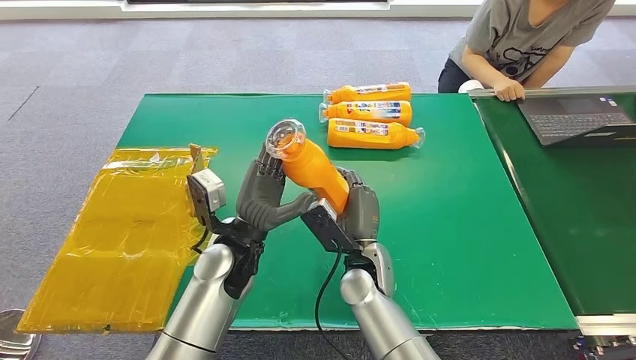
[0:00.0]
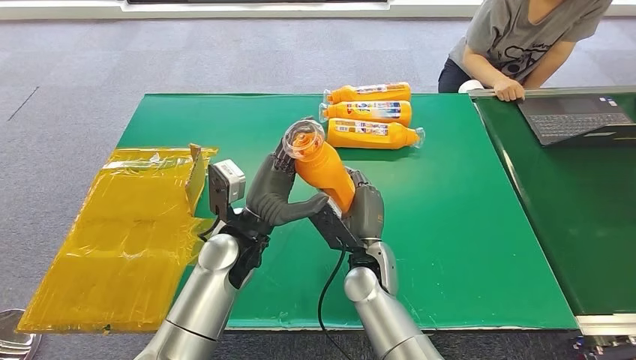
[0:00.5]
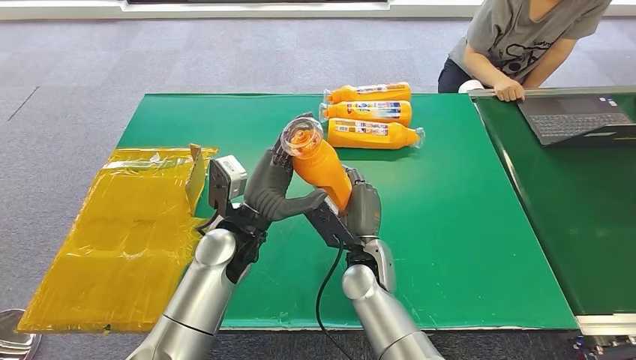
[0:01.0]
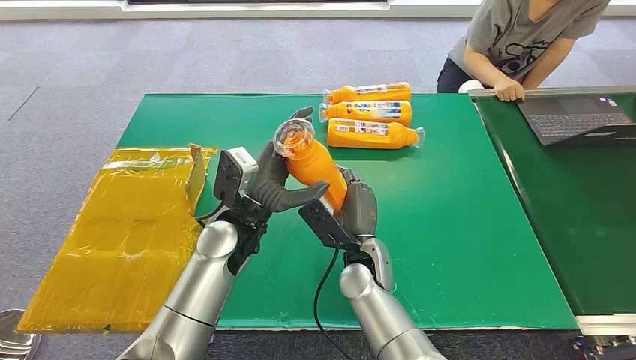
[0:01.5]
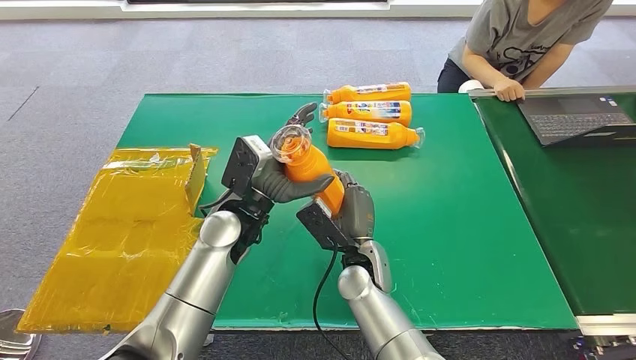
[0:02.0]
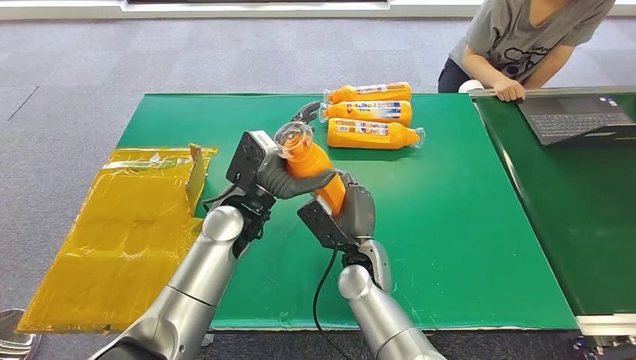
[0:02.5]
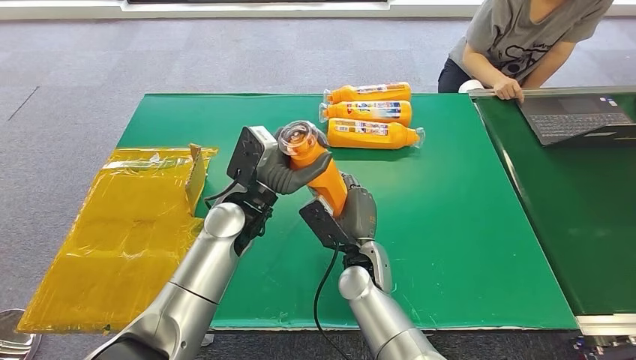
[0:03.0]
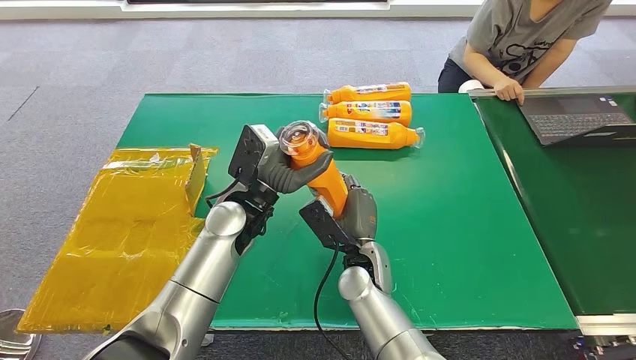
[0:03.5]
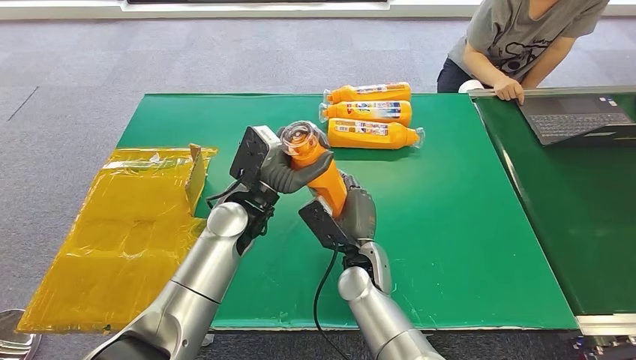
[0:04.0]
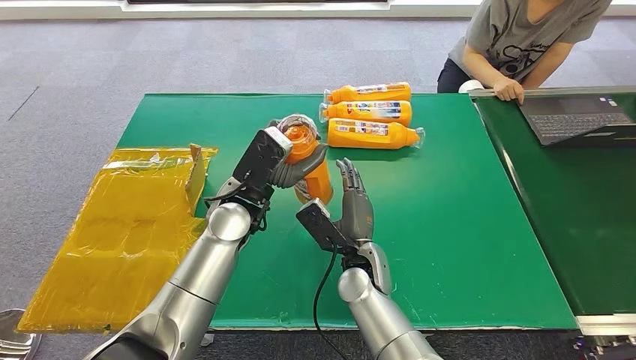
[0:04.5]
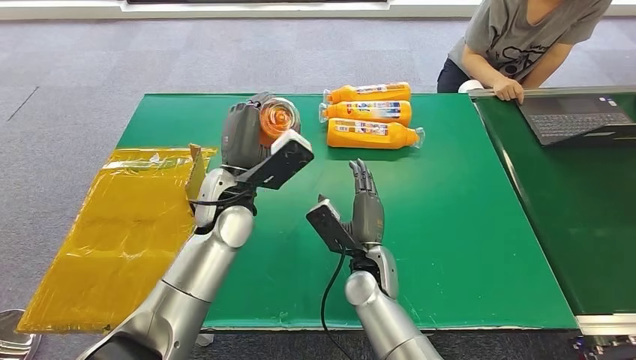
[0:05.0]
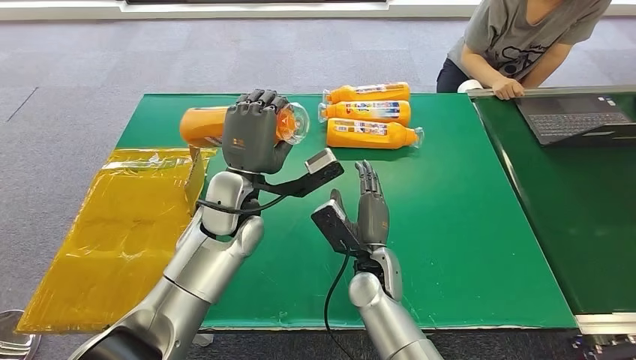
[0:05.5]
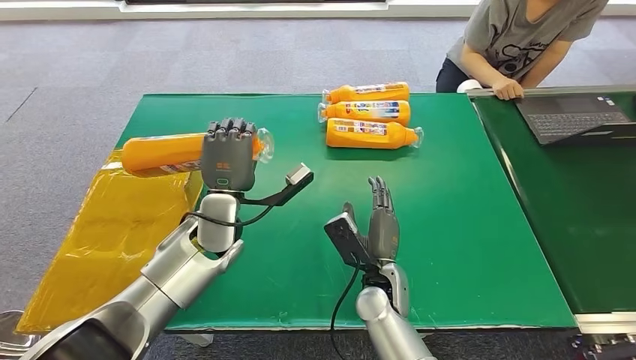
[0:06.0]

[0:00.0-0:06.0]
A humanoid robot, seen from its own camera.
Step, 0:00.0 to 0:06.0: Turn the bottle to the front side.
0:00.0 to 0:02.0: The left hand ends up about 5 cm from where it was.
0:02.0 to 0:04.0: The two hands keep their place.
0:04.0 to 0:06.0: The left hand travels to the left by about 5 cm.

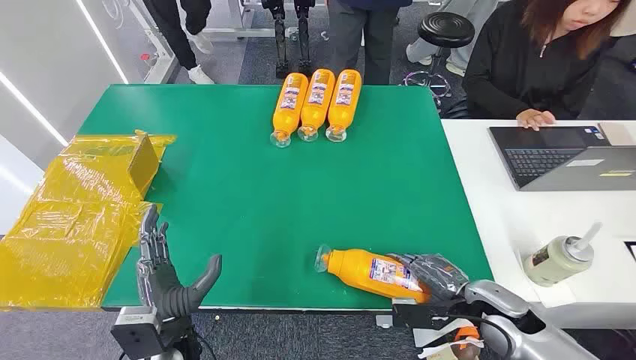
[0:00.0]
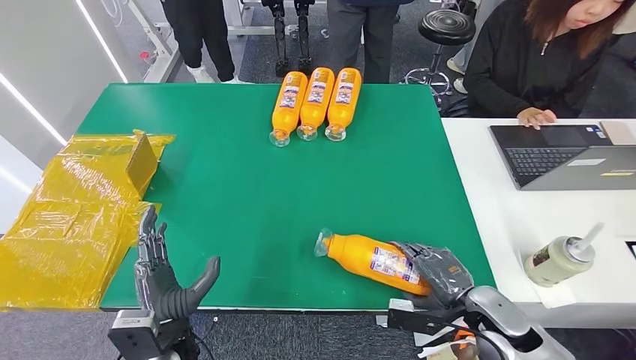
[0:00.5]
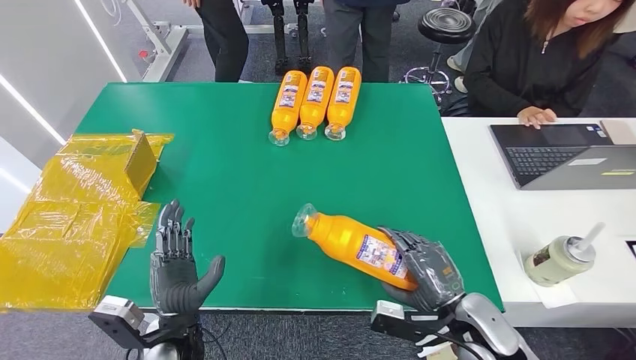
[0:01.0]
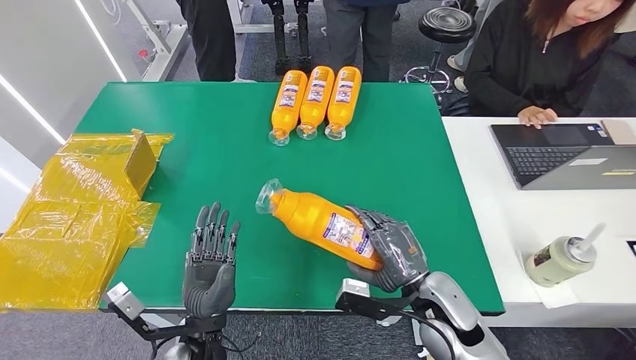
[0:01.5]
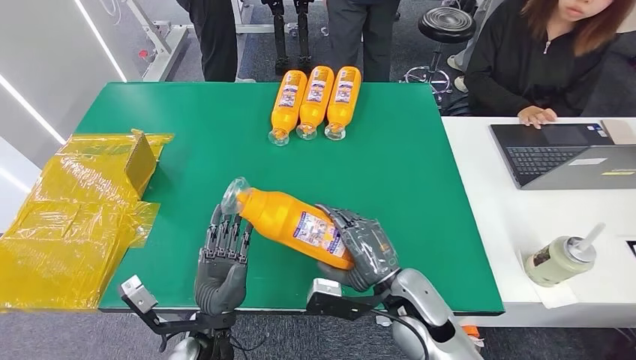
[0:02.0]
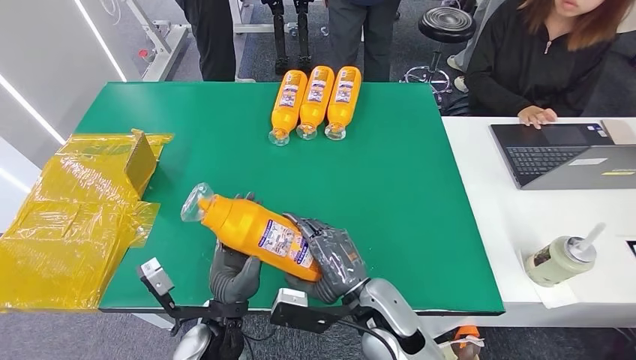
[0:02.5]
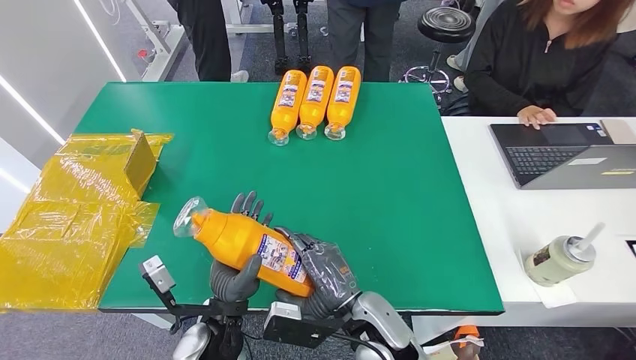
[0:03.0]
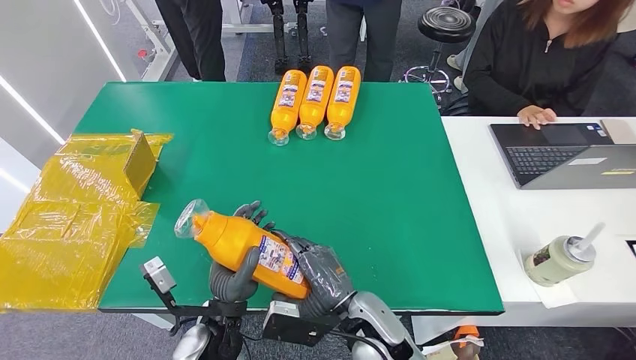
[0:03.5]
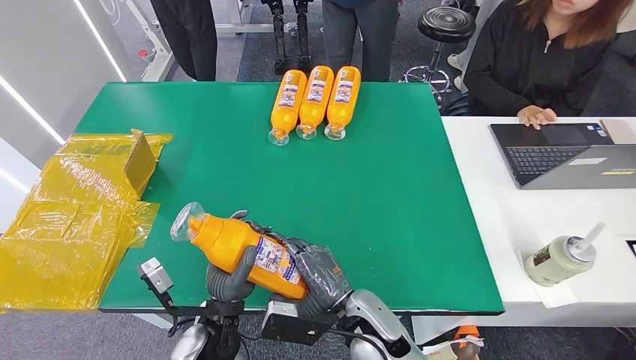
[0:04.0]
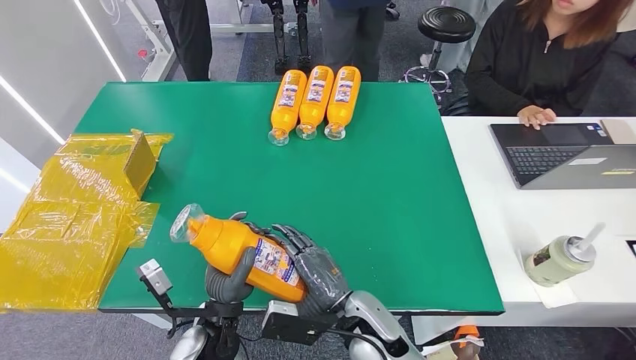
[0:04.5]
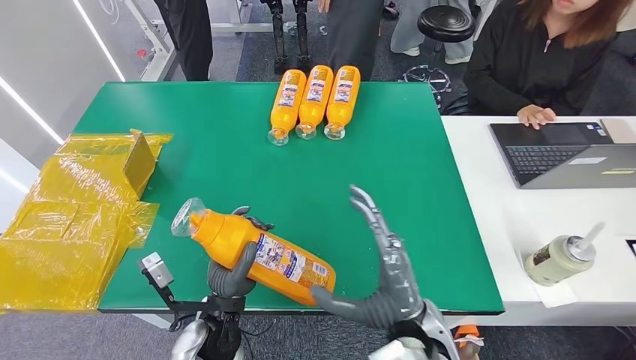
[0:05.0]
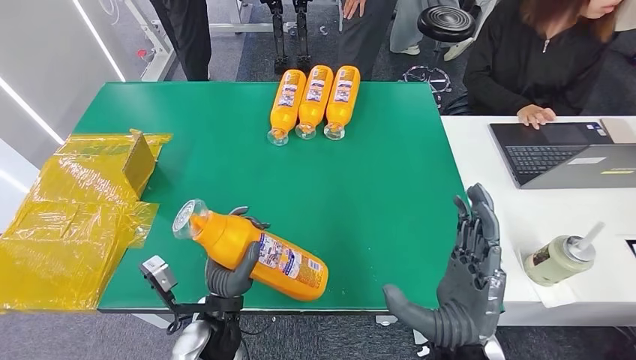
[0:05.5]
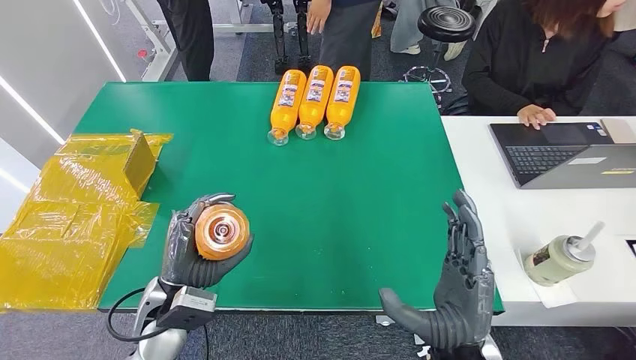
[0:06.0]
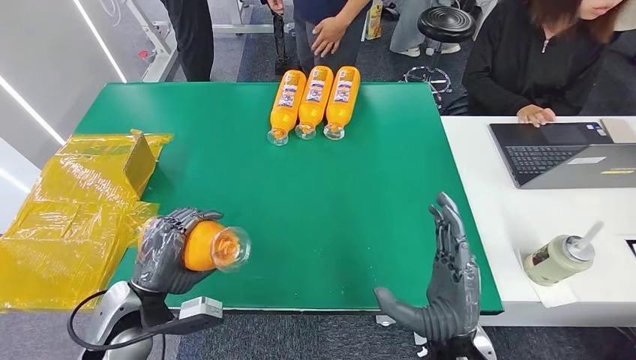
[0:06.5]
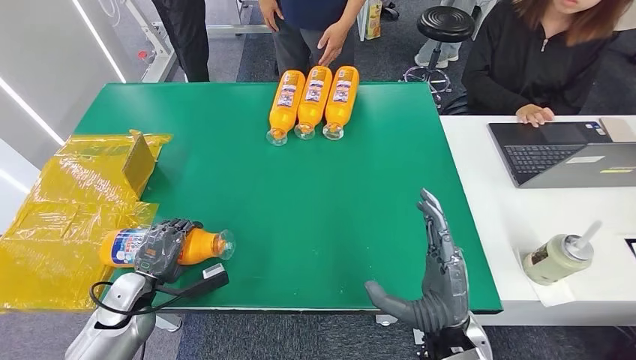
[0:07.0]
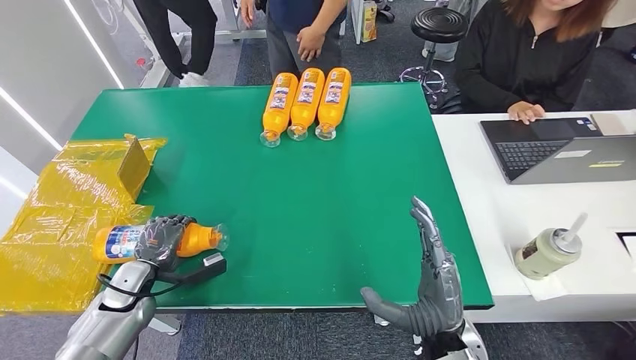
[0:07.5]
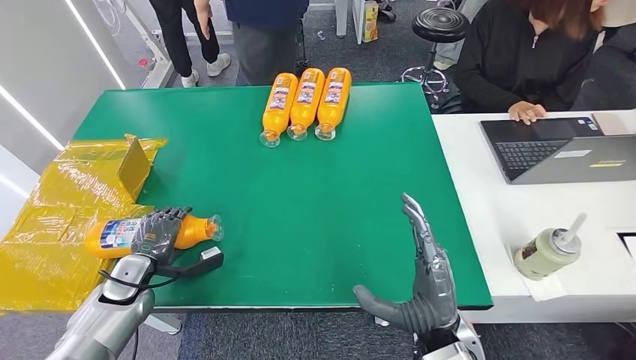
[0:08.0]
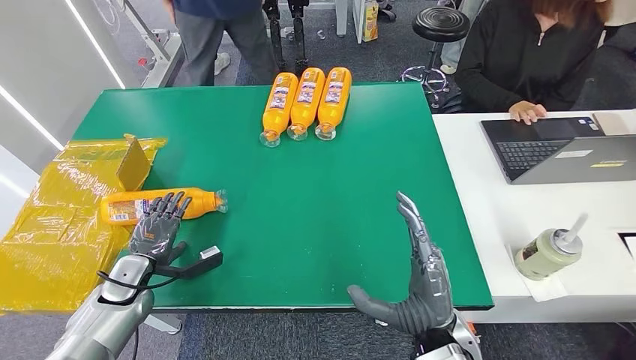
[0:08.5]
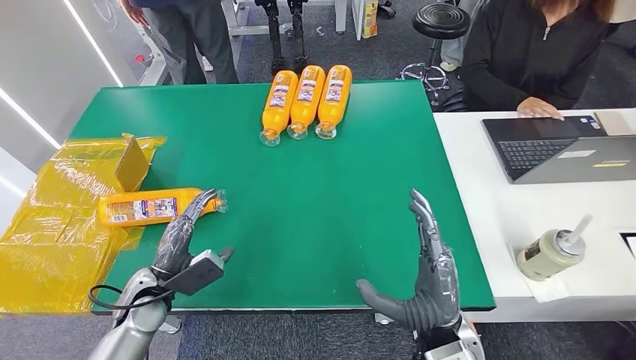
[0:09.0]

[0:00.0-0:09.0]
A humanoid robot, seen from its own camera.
Step, 0:00.0 to 0:03.0: Pick up the bottle from the table.
Step, 0:03.5 to 0:09.0: Turn the bottle to the front side.
0:02.0 to 0:04.5: The right hand moves to the left, some 10 cm.
